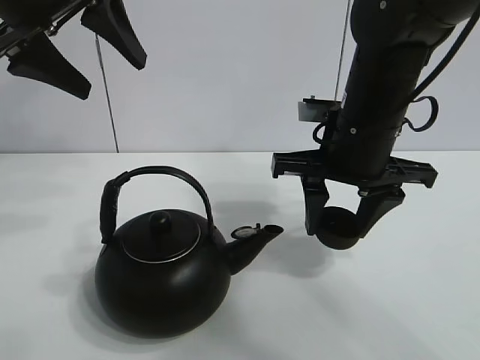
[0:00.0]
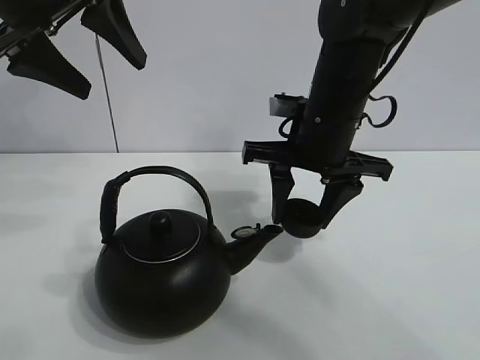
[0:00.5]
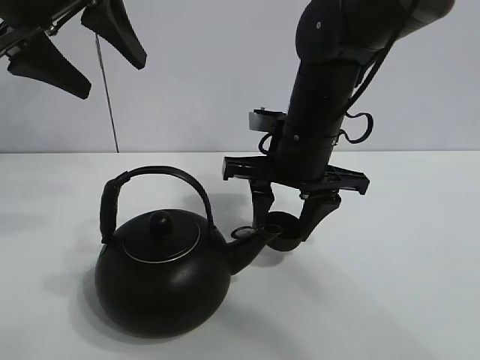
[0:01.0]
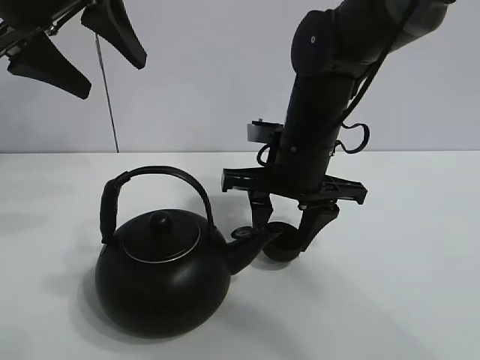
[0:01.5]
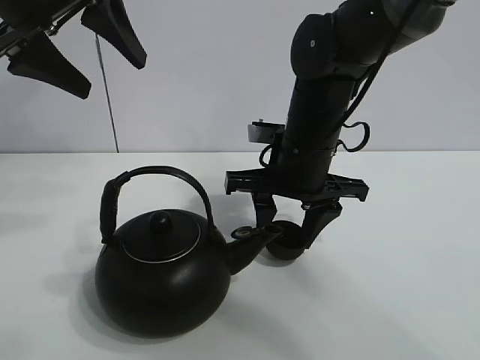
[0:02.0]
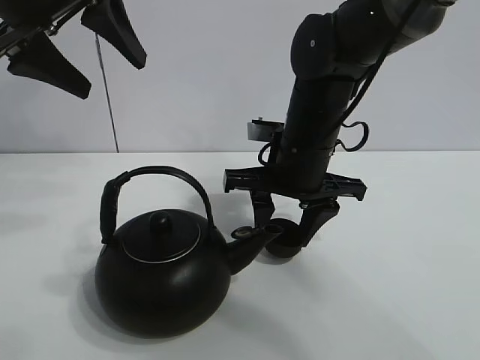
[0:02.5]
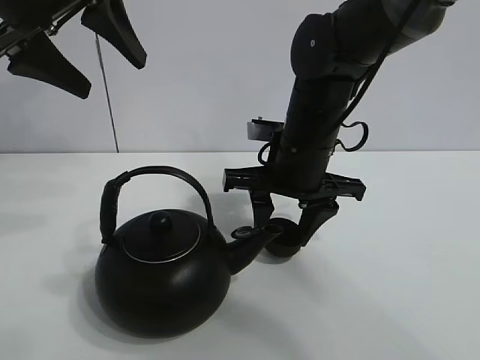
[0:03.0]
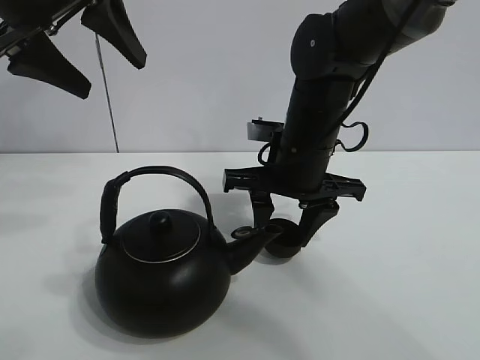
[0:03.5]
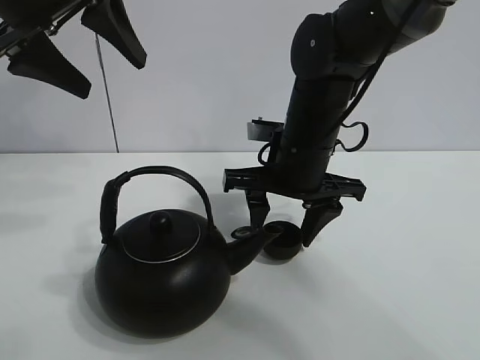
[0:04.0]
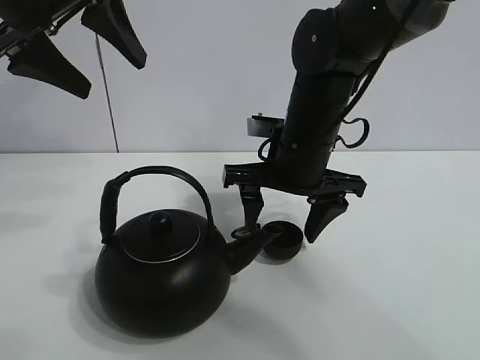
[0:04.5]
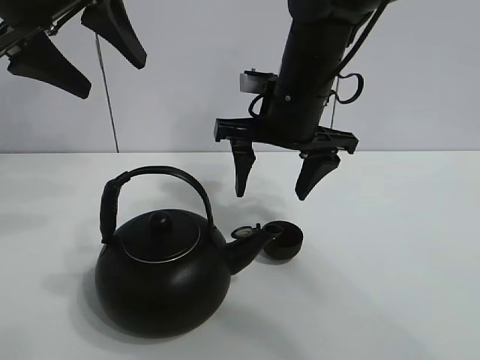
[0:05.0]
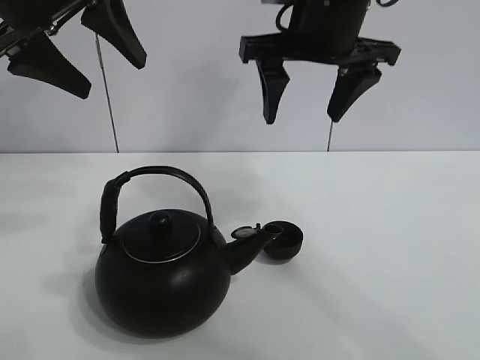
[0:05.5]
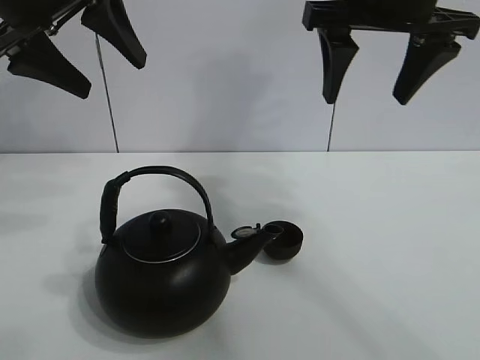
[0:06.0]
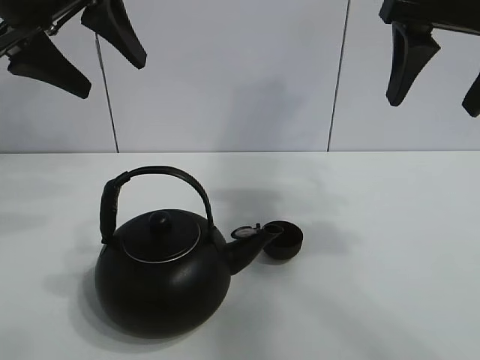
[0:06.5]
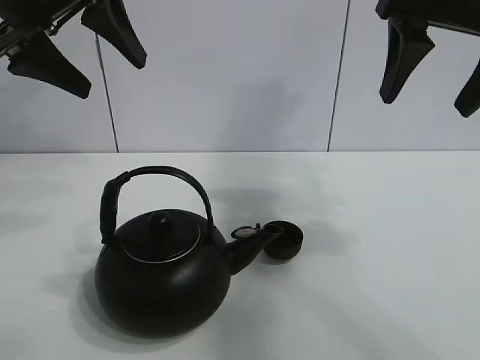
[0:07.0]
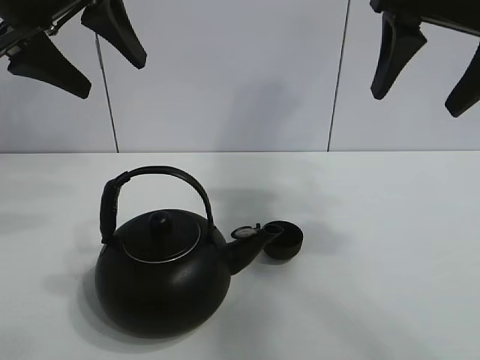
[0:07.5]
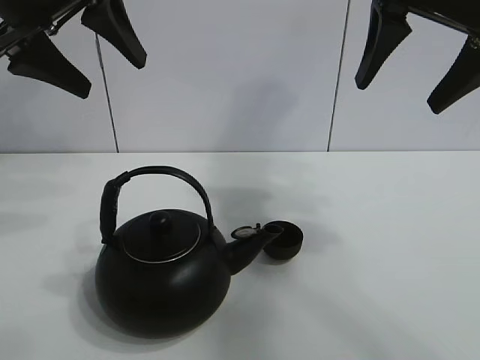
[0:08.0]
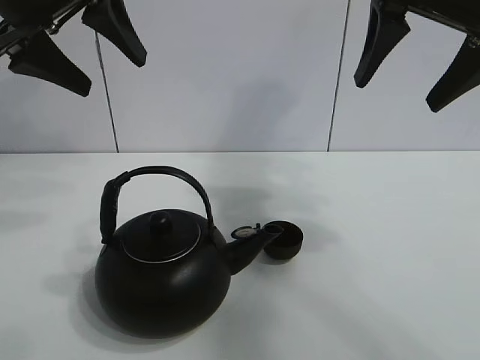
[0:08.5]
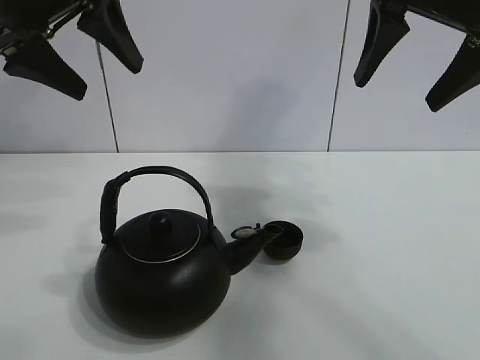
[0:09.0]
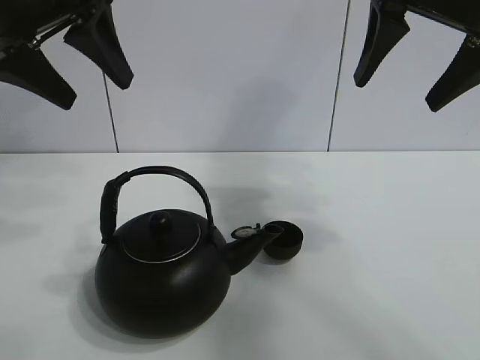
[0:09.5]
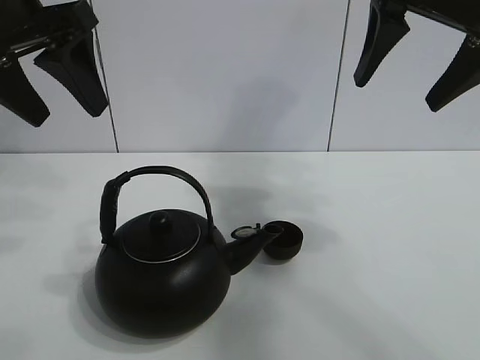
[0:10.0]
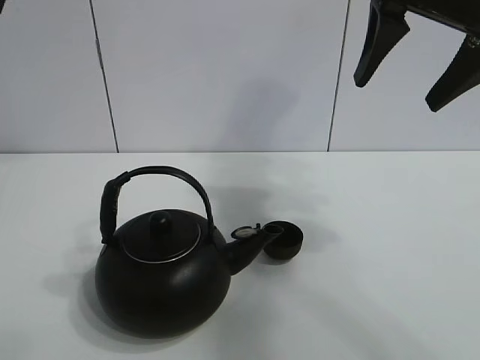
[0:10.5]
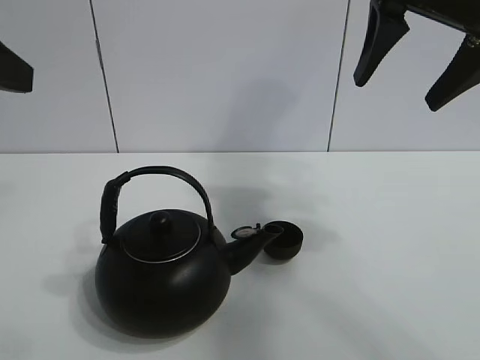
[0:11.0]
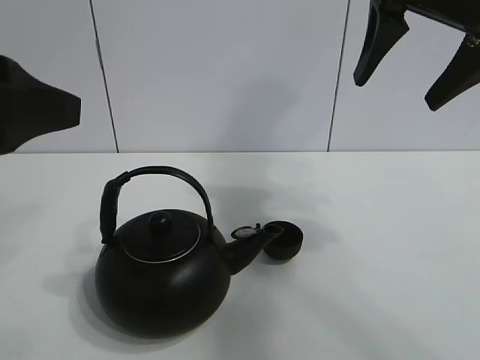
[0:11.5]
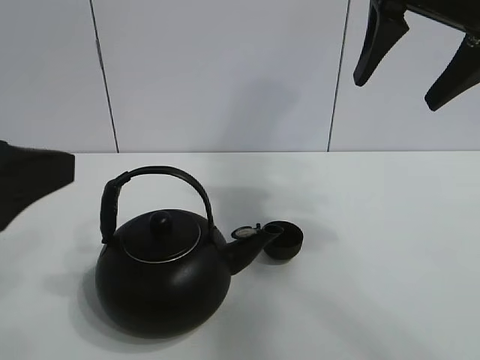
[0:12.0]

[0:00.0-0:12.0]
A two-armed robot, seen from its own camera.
Task of the whole recording: pour tea into the teacup.
Step, 0:00.0 to 0:04.5: Place the teacup in the center of view with the right gripper.
0:00.0 to 0:02.0: The right gripper moves some 5 cm.
0:02.0 to 0:04.0: The right gripper opens.
0:04.0 to 0:06.0: The right gripper travels upward and to the right by some 20 cm, and opens its fingers.
0:06.0 to 0:08.0: The right gripper shifts by roughly 5 cm.
0:08.0 to 0:10.0: There are only small adjustments of the grippers.
0:10.0 to 0:12.0: The left gripper is displaced backward and downward by some 20 cm.

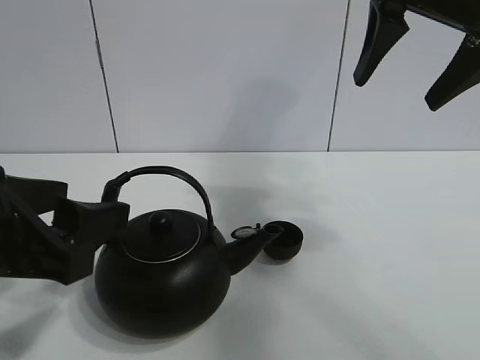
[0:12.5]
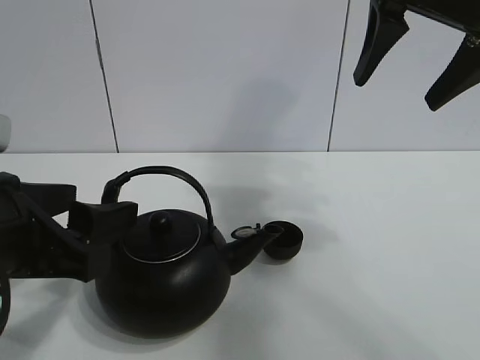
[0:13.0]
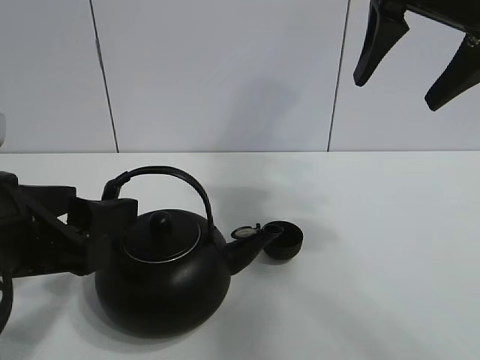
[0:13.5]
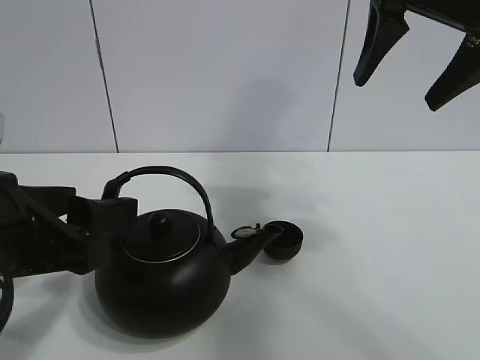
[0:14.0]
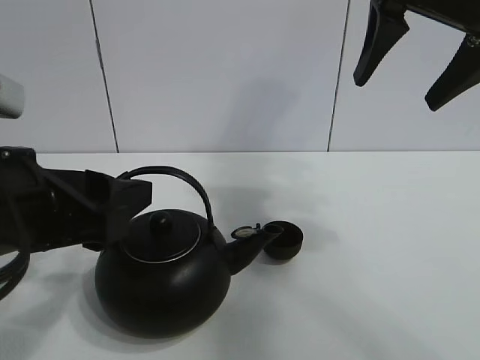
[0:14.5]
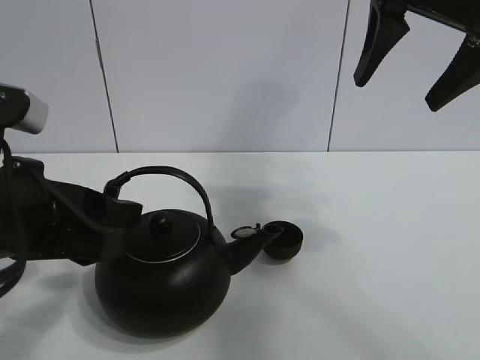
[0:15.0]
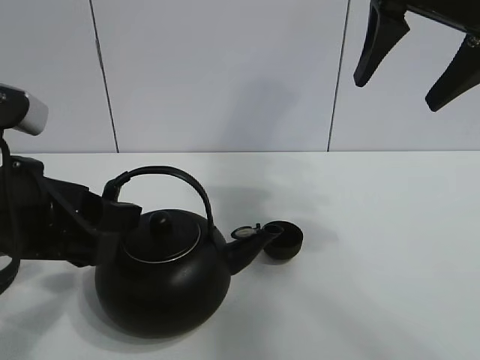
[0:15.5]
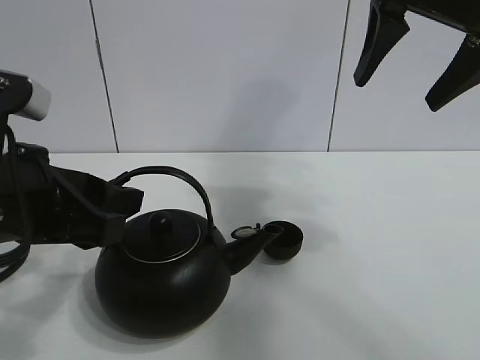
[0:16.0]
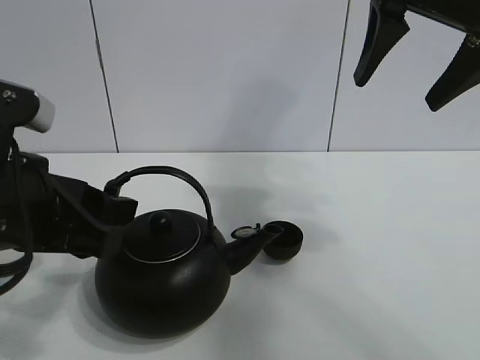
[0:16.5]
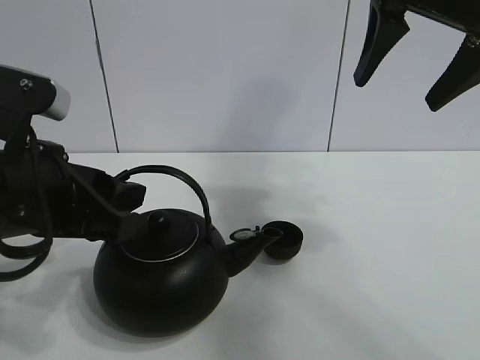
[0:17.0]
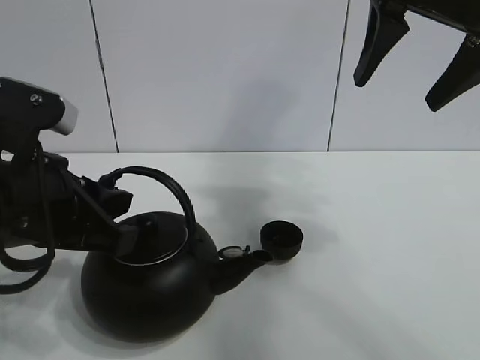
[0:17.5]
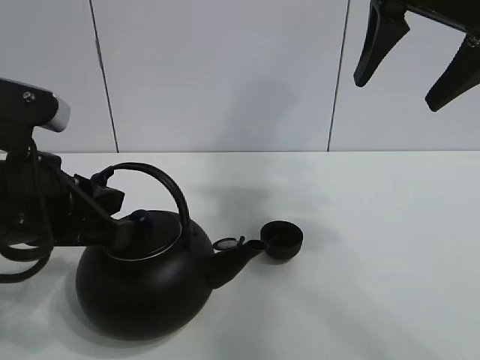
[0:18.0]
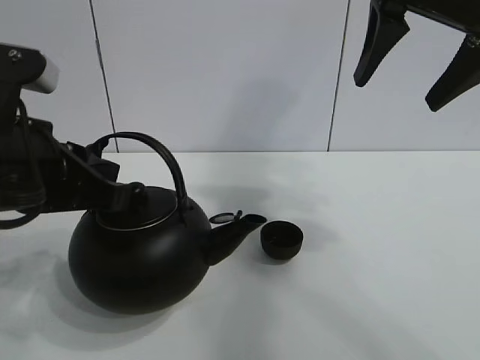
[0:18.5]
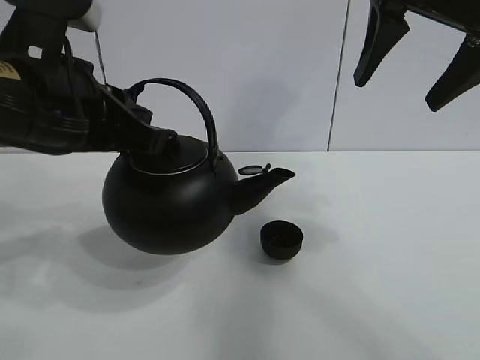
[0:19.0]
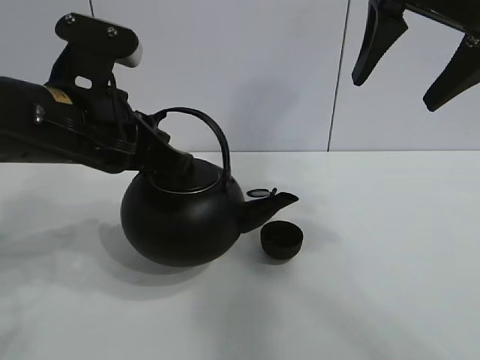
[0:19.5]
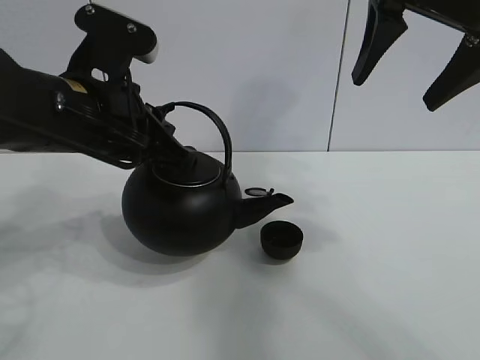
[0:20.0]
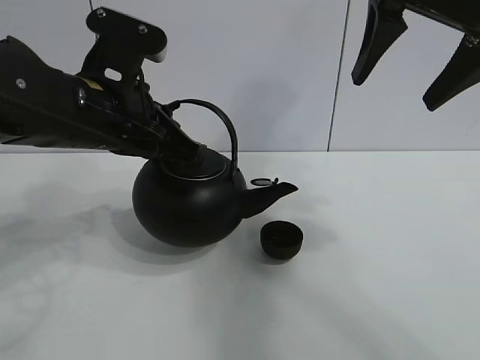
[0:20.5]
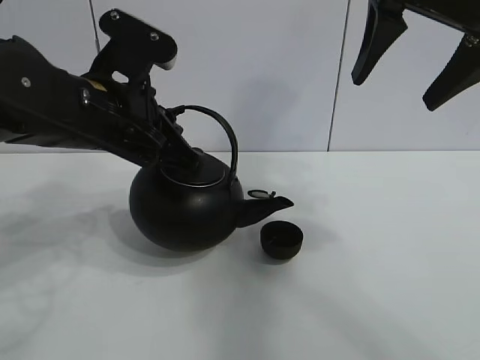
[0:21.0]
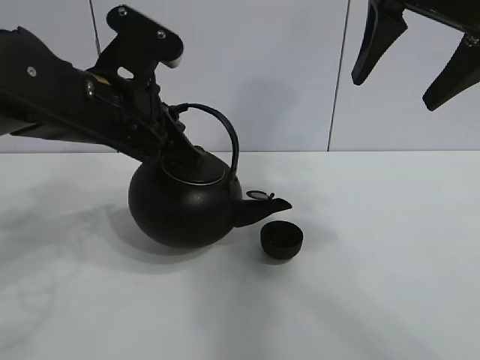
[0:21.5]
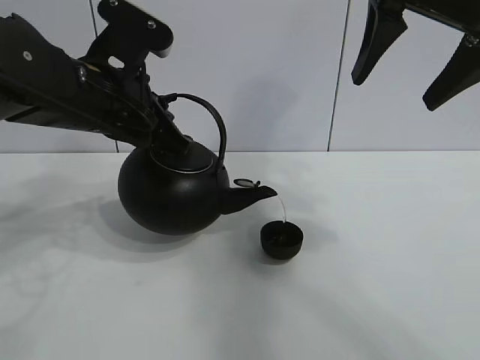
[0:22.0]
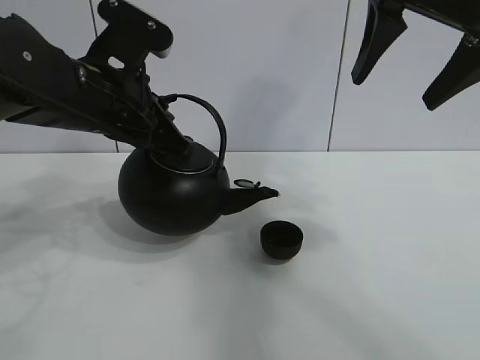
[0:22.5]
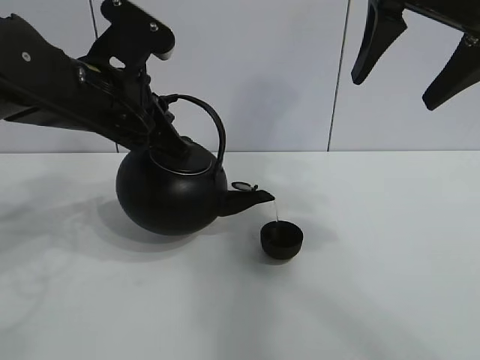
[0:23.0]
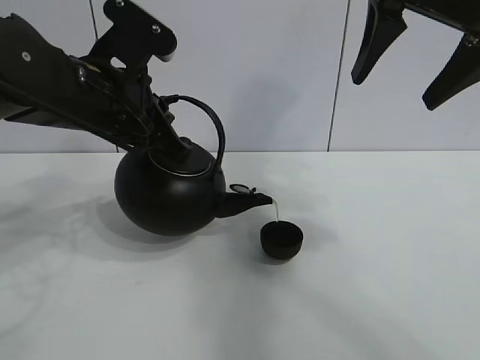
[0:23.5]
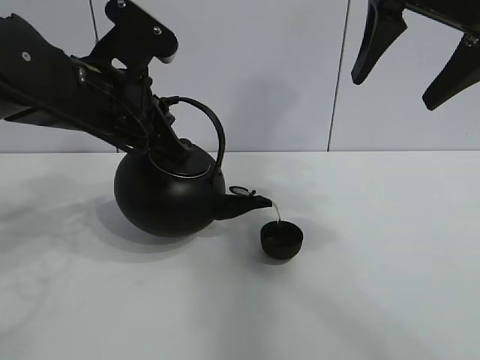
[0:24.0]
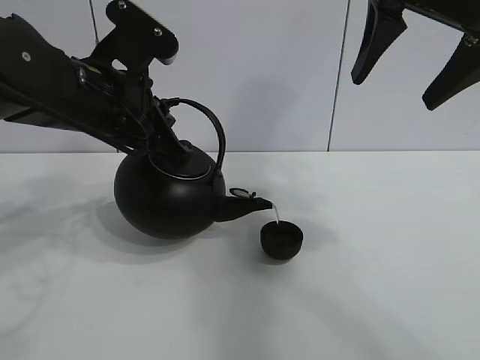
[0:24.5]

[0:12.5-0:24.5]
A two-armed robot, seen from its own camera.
Task of the whole recording: pour tea into the teacup.
Step, 0:12.5 to 0:18.0: Pick up the teapot with the left gripper.
0:12.5 to 0:16.5: There are only small adjustments of the grippers.
0:16.5 to 0:18.5: The left gripper closes its fingers.
0:18.5 to 0:20.5: The left gripper heads forward and to the right, covering some 10 cm.
0:20.5 to 0:24.5: The grippers stay close to where they were, moving slightly.

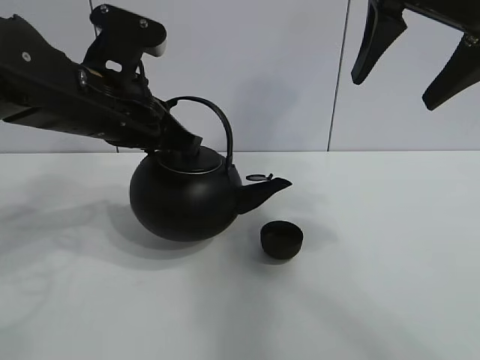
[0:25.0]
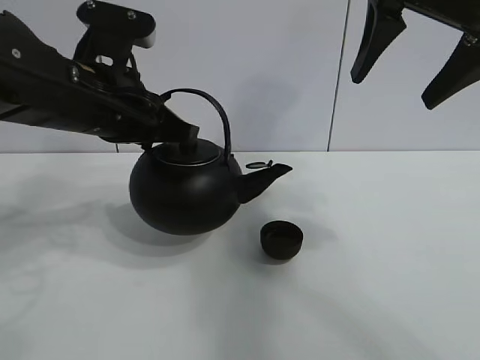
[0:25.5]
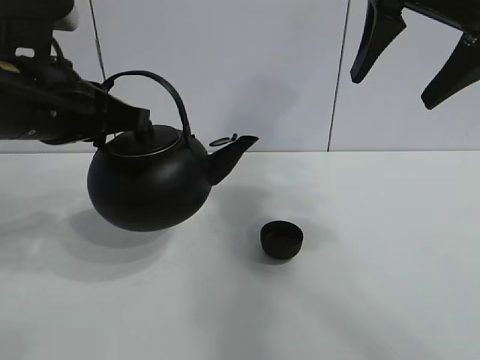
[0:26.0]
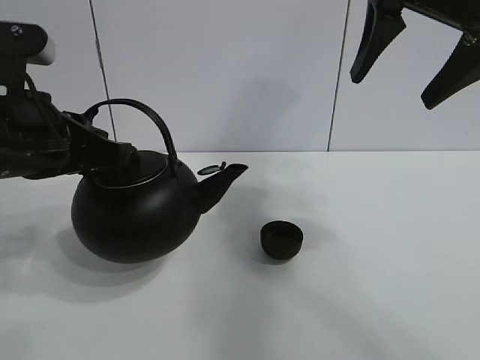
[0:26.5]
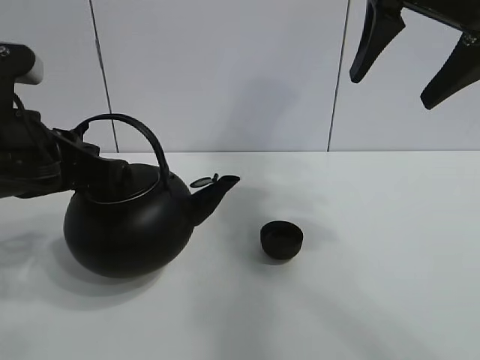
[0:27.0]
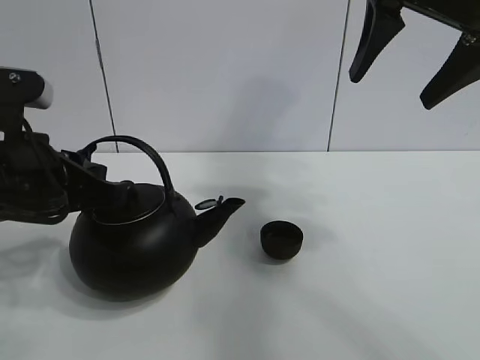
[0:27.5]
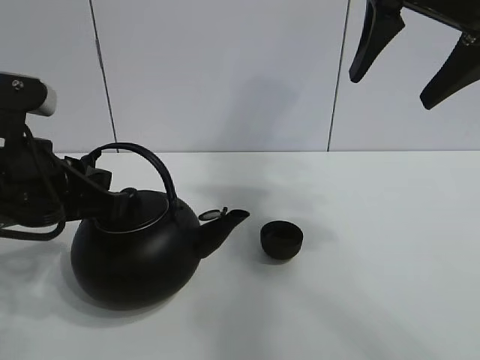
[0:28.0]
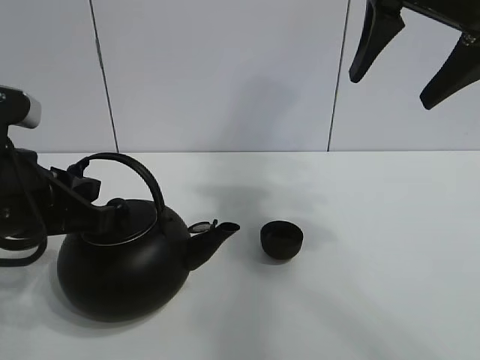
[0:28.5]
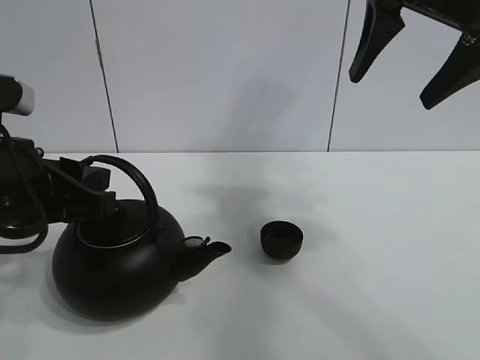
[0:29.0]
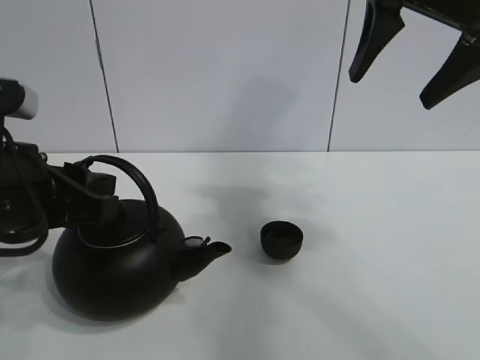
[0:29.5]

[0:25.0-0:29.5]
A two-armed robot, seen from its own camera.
Task of the whole recording: pour tea into the teacup.
0:25.0 to 0:27.0: The left gripper travels backward and to the left by about 10 cm.
0:27.0 to 0:29.5: The left gripper opens.
